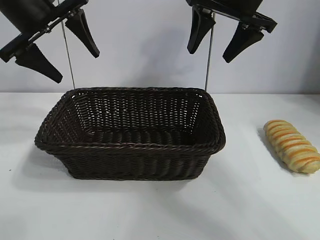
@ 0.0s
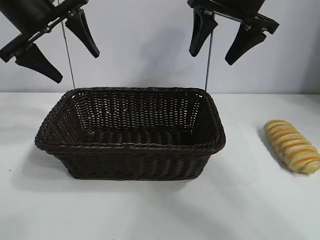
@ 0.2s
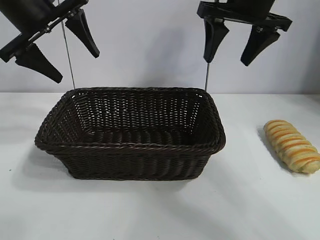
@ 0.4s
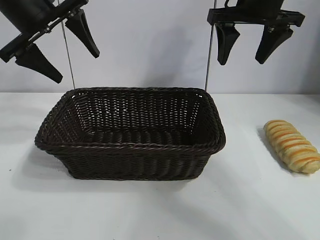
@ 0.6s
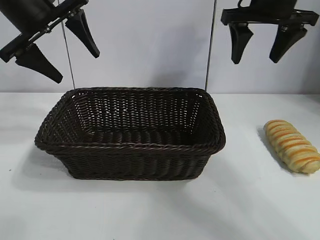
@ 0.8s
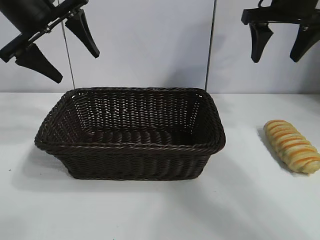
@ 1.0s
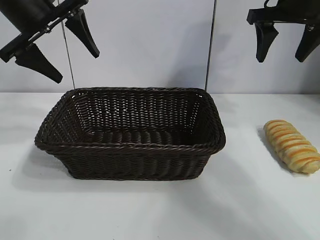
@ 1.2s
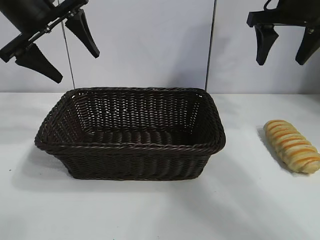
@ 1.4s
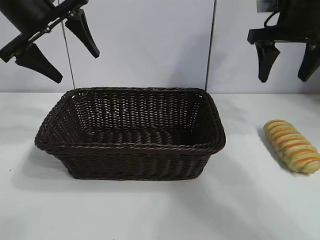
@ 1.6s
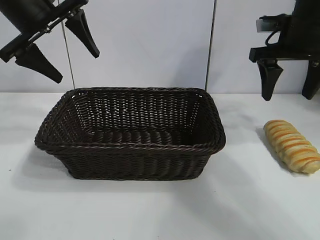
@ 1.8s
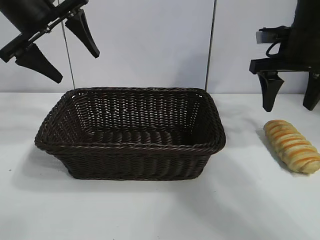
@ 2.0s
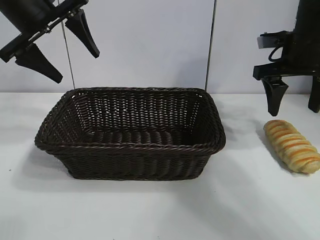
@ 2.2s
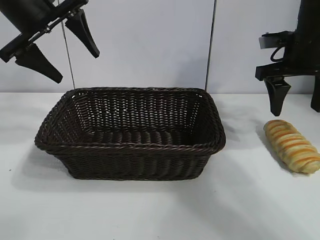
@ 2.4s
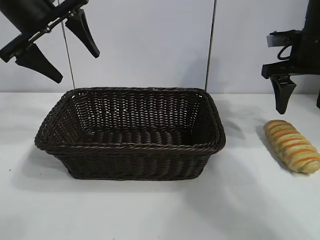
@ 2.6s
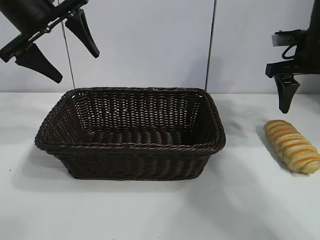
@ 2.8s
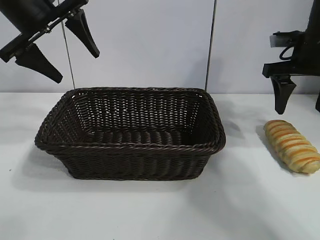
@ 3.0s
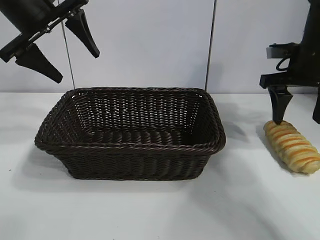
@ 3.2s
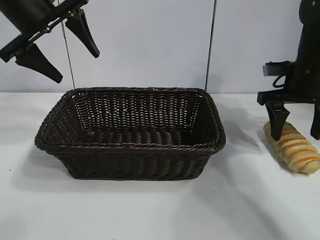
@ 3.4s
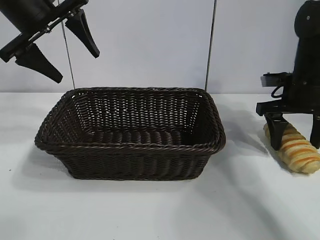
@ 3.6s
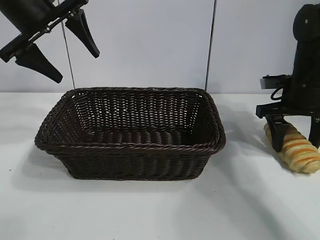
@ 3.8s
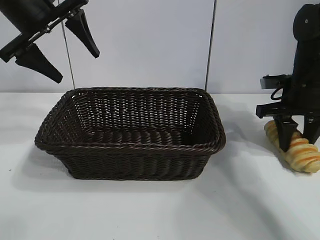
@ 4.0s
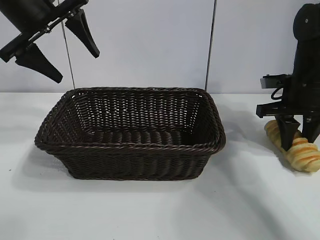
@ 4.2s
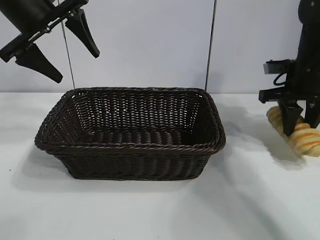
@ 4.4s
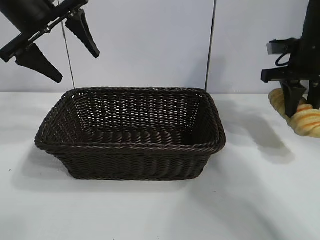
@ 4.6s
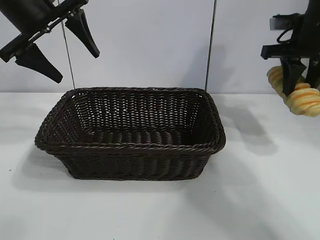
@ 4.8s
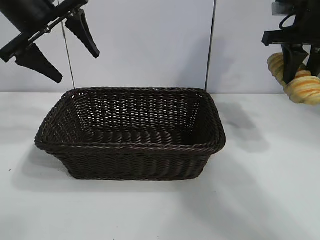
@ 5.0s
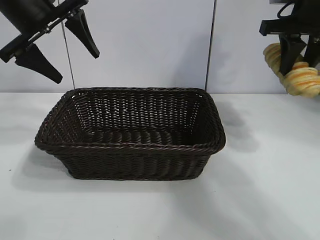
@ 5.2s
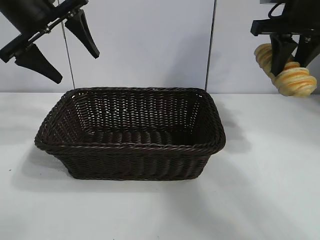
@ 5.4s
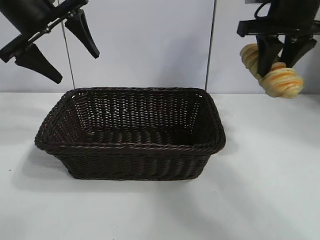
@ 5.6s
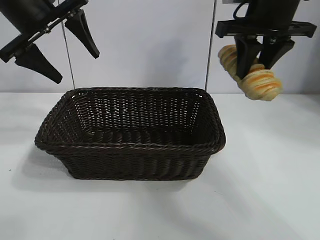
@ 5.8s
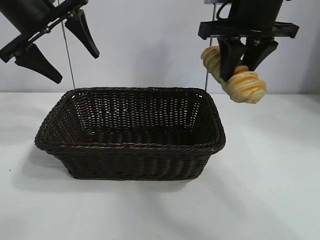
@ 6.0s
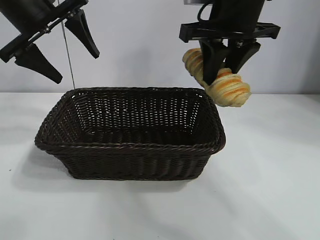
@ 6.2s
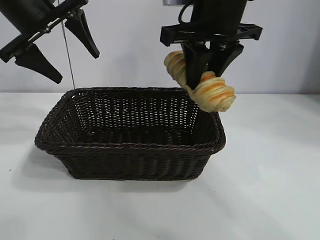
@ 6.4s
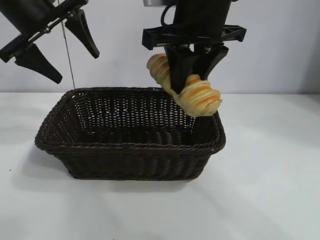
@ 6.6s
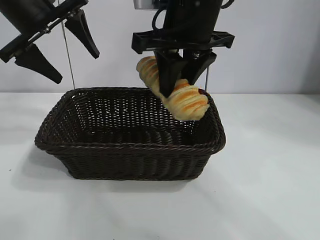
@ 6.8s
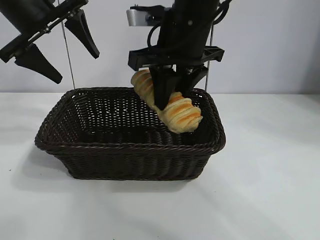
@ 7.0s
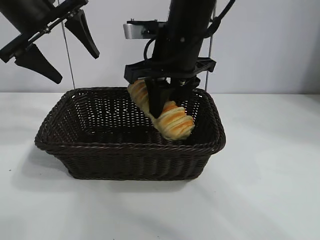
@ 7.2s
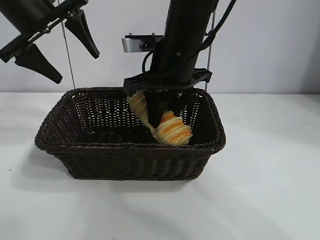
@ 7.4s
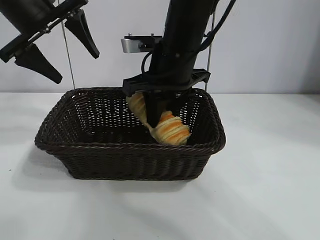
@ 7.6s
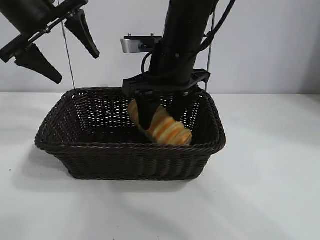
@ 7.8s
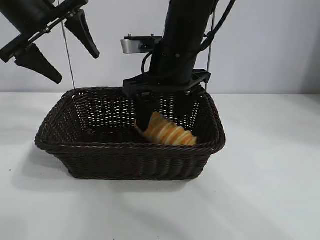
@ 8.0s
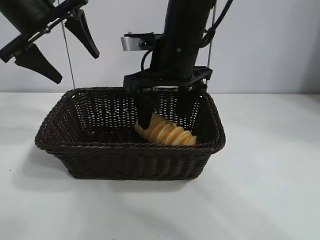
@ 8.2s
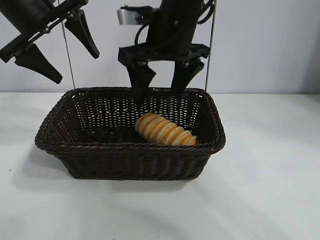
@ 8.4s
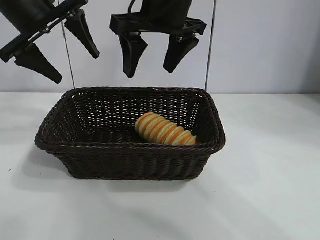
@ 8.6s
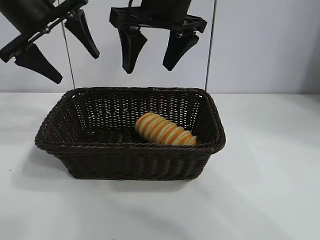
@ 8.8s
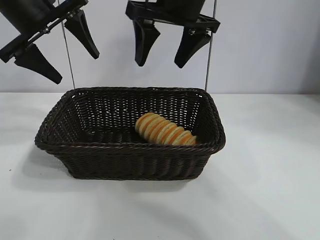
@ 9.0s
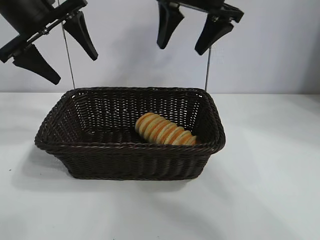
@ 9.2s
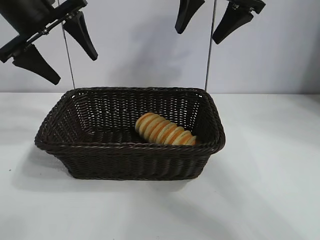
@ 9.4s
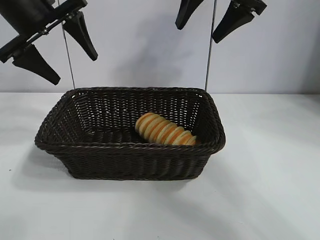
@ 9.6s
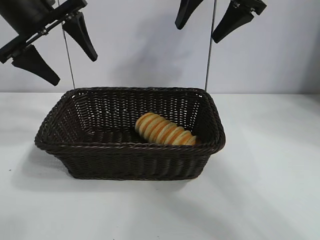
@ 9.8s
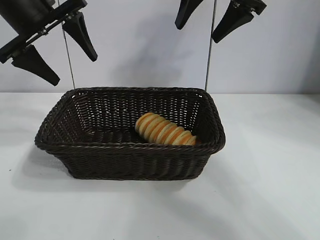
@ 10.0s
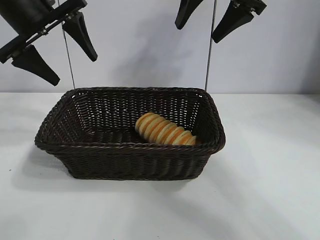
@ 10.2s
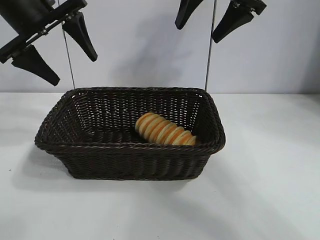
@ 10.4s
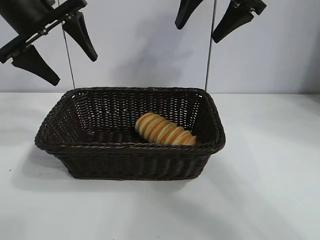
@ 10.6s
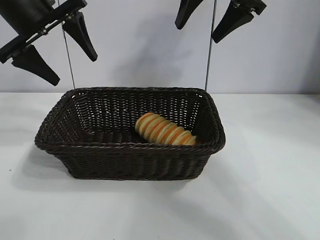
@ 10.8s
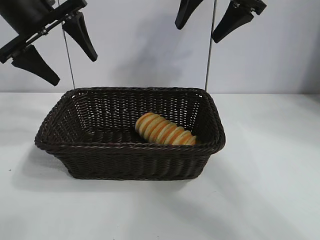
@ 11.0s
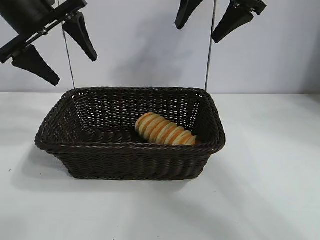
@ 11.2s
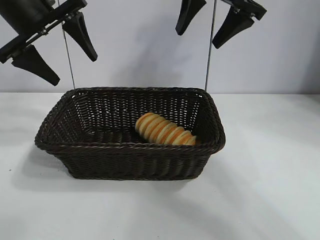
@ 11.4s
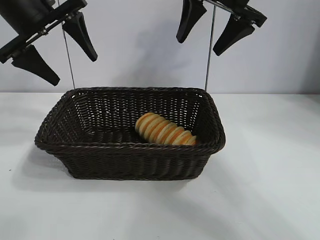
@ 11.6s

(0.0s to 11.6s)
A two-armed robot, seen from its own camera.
Task of the whole recording: pick up the long bread and put it into the basket.
Step, 0.0s - 4.0s: Grasp the long bread with right gripper.
Step, 4.4s - 8.2s: Place the long bread in the basket with right gripper.
